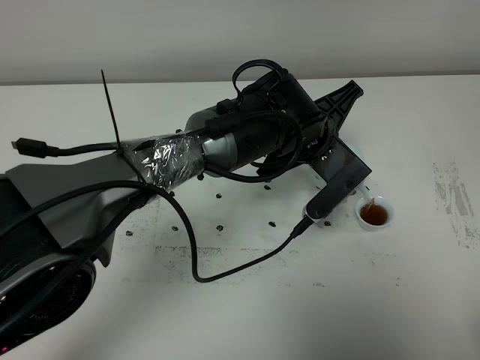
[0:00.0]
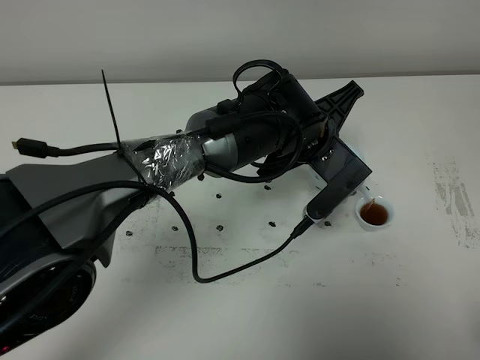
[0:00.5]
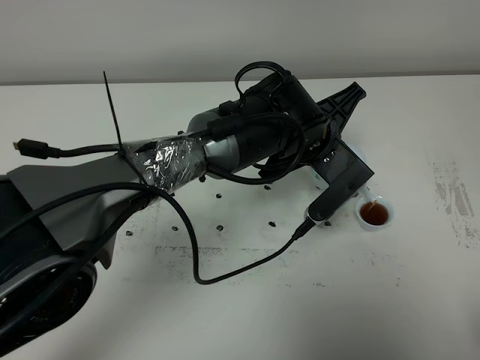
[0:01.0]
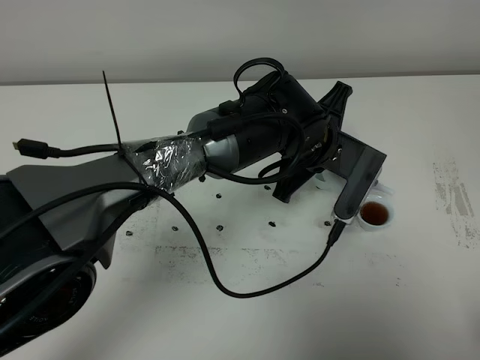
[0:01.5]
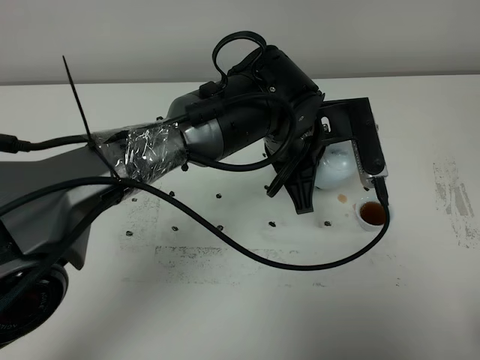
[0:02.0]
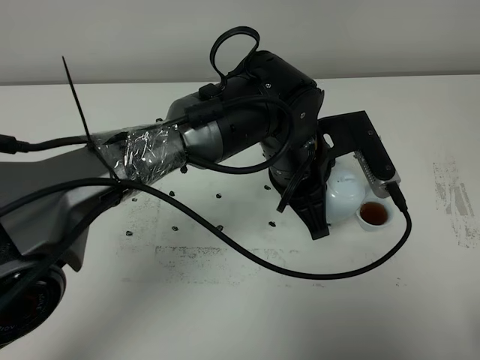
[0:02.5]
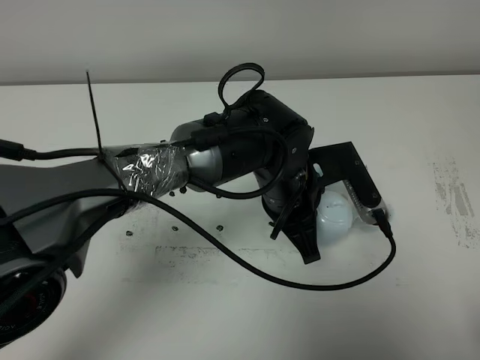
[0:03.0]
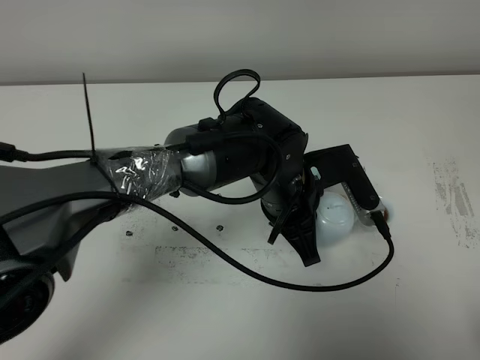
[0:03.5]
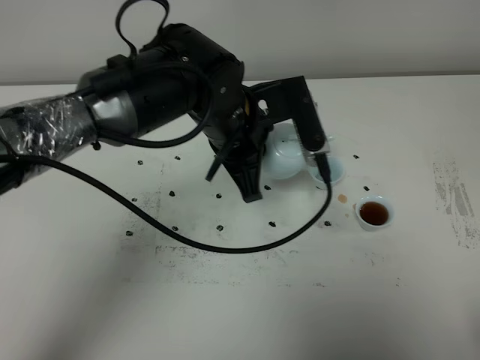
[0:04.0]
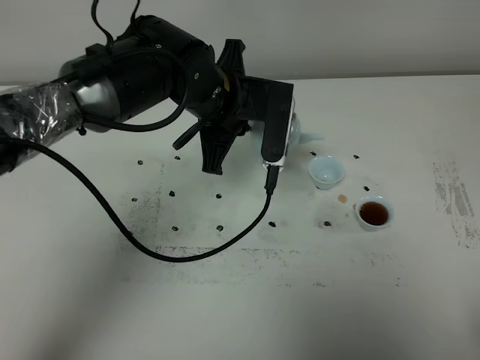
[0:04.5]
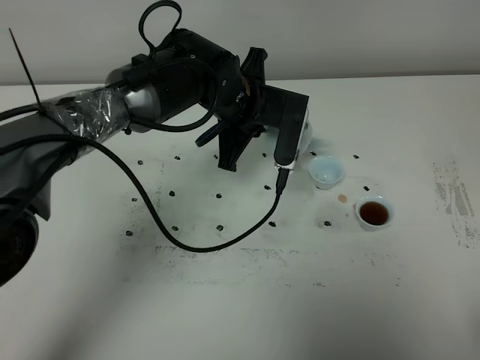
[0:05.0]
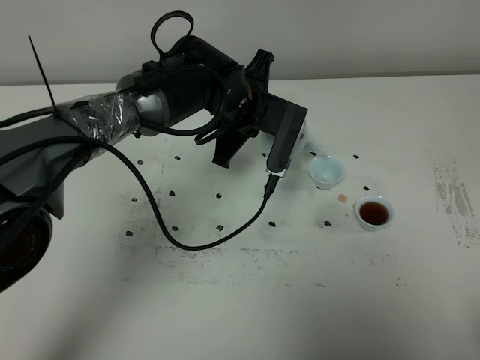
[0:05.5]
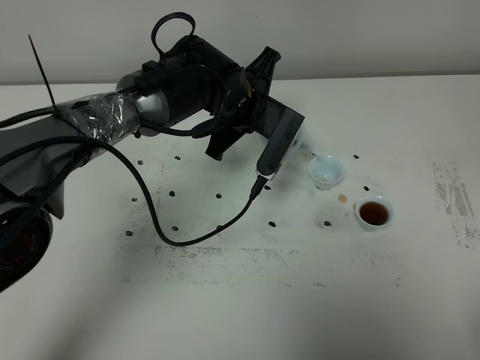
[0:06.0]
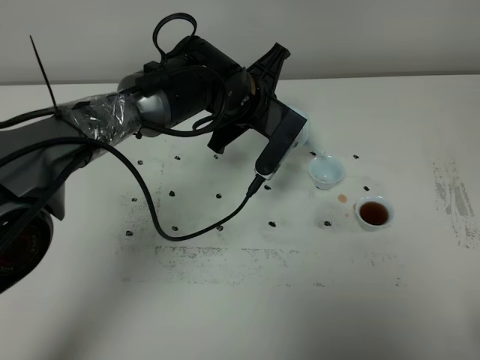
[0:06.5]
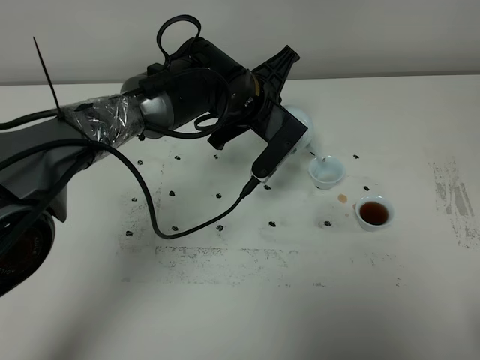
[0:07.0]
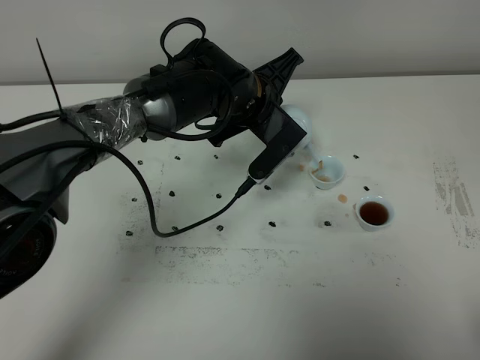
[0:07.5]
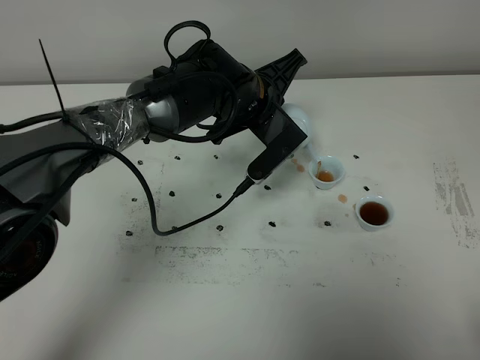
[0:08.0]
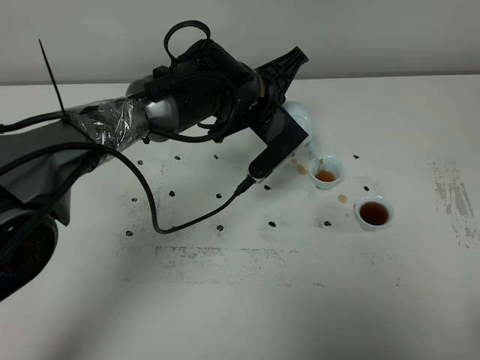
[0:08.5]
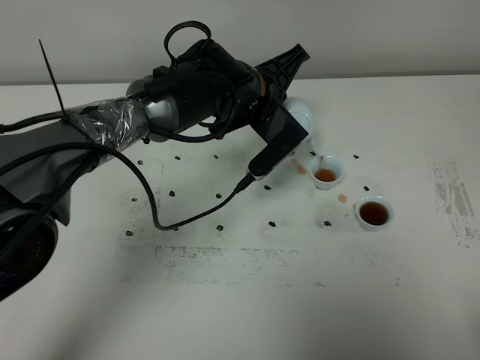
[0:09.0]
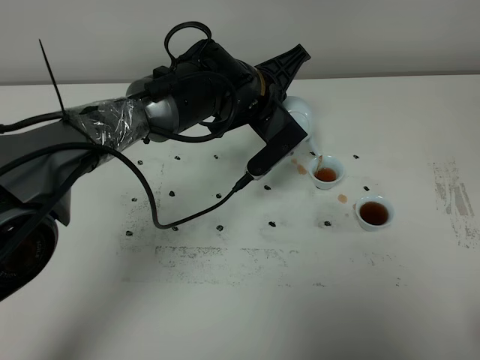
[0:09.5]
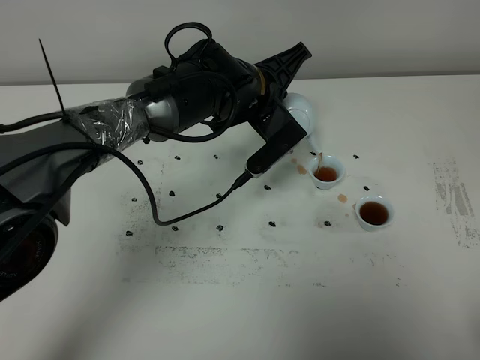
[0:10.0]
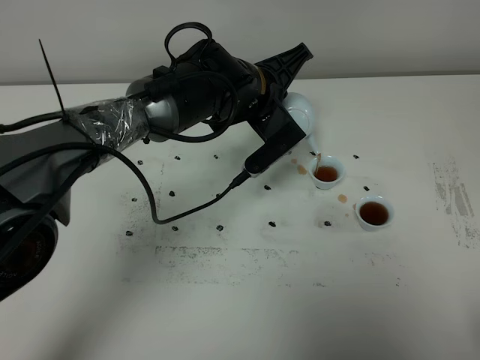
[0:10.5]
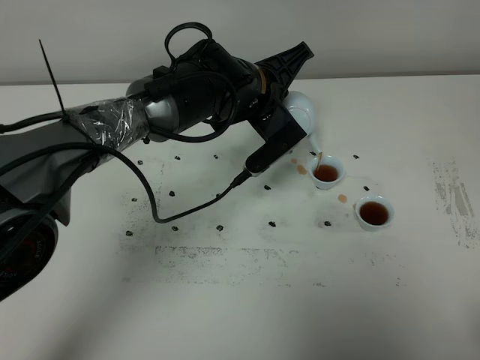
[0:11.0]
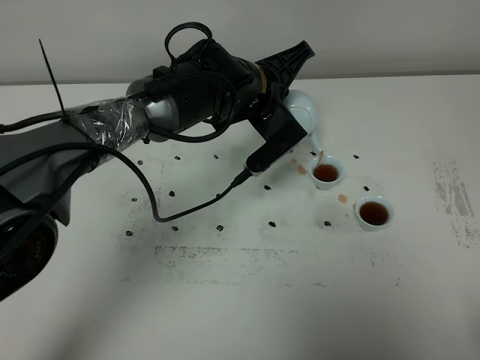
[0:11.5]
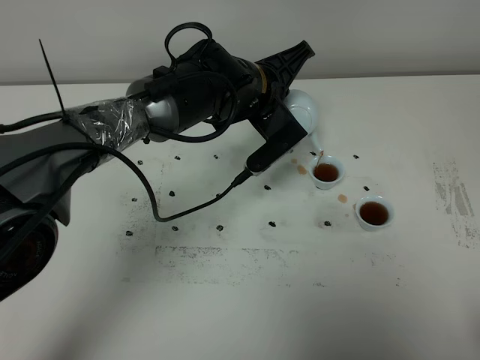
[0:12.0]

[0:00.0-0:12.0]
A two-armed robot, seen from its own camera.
Task of the whole recording: grasp the blue porcelain teapot and pour the tea into the two blue porcelain teacups one by one, put the blue porcelain teapot back in its original place.
0:02.0 to 0:04.0: The left gripper travels to the left by about 5 cm.
0:04.0 to 0:06.0: The left gripper shifts roughly 5 cm forward.
0:06.0 to 0:08.0: There are only small adjustments of the grippers.
0:08.0 to 0:10.0: The grippers stay close to where they were, moving slightly.
0:10.0 to 0:12.0: The two grippers keep their place.

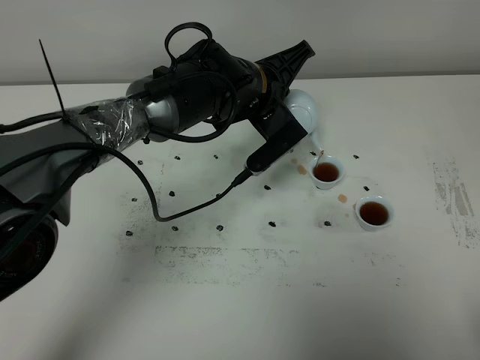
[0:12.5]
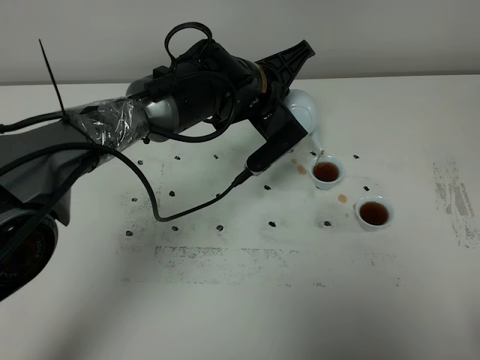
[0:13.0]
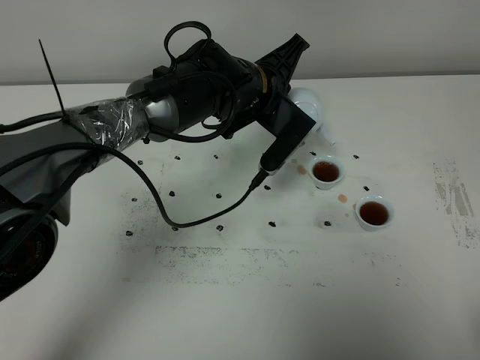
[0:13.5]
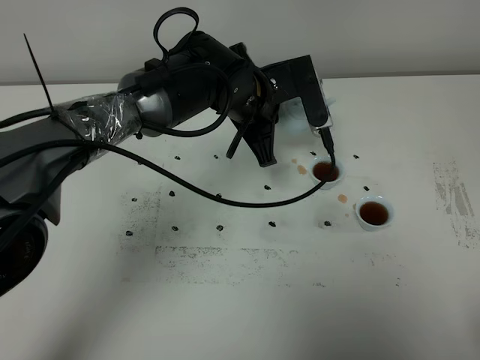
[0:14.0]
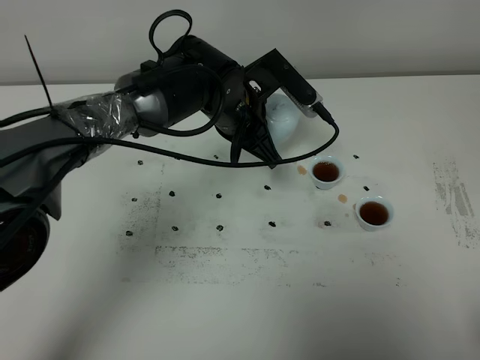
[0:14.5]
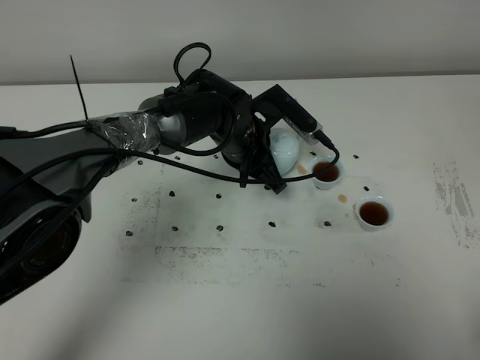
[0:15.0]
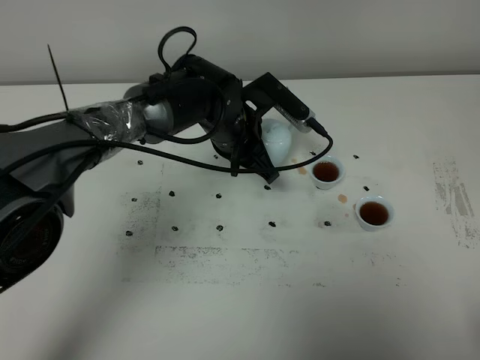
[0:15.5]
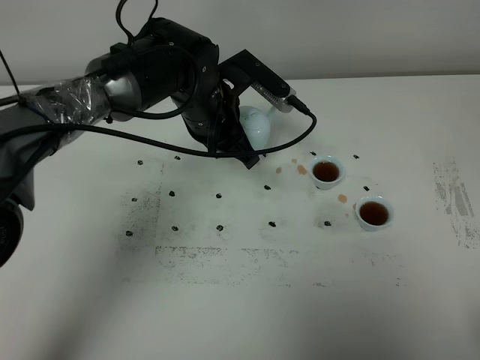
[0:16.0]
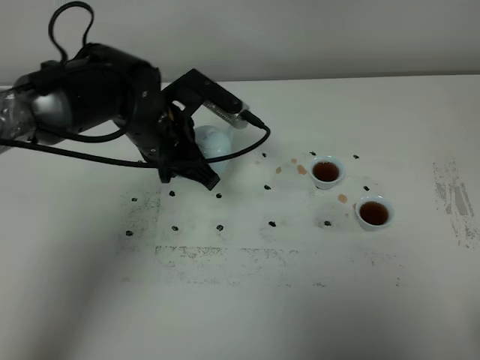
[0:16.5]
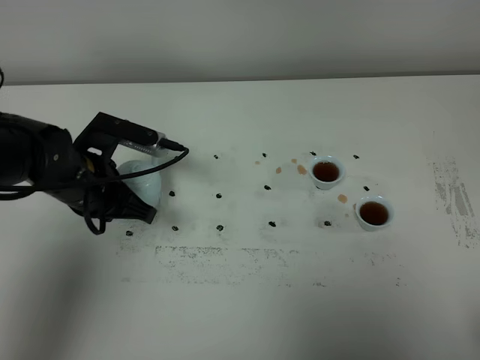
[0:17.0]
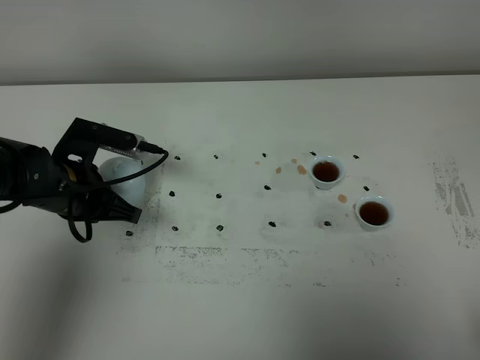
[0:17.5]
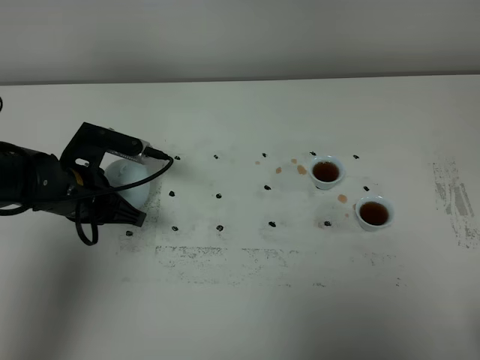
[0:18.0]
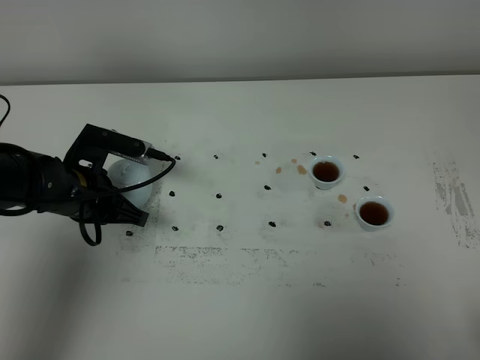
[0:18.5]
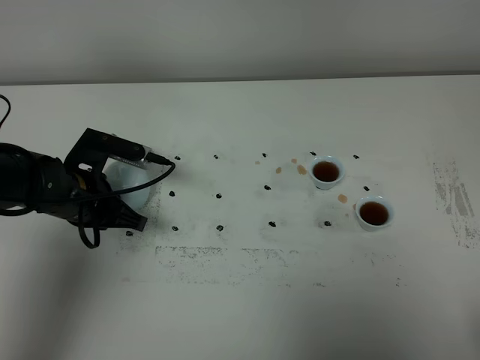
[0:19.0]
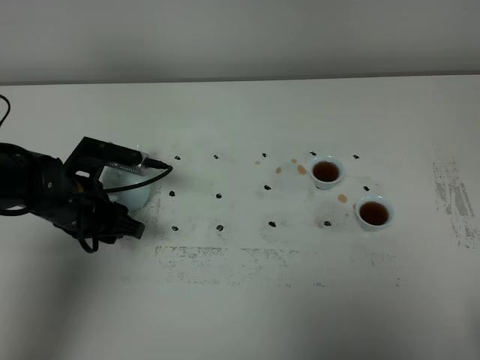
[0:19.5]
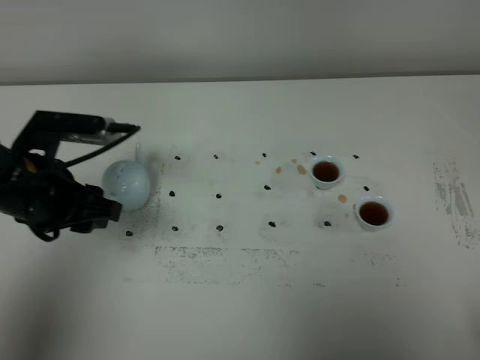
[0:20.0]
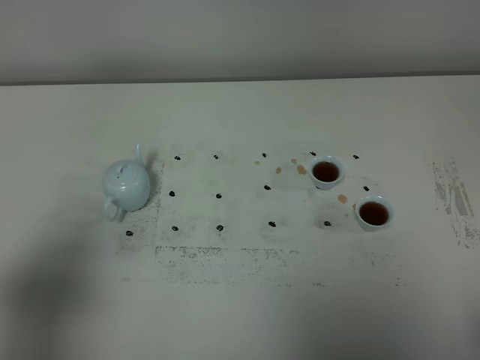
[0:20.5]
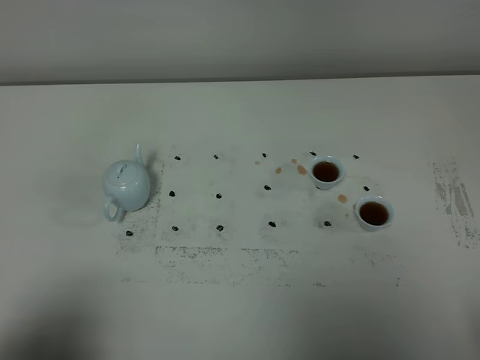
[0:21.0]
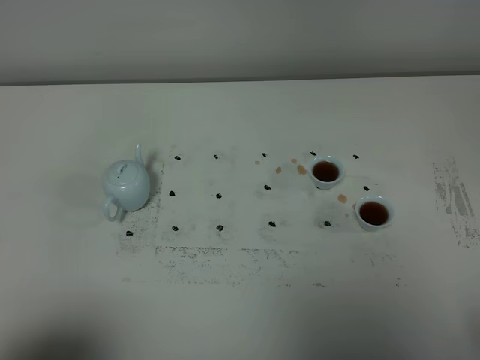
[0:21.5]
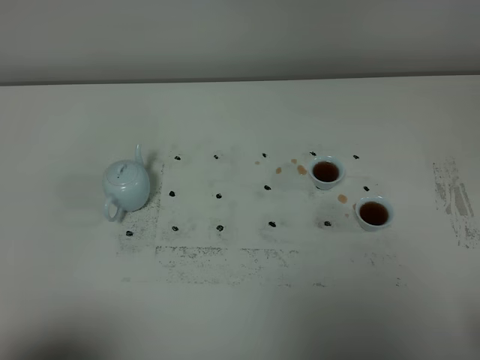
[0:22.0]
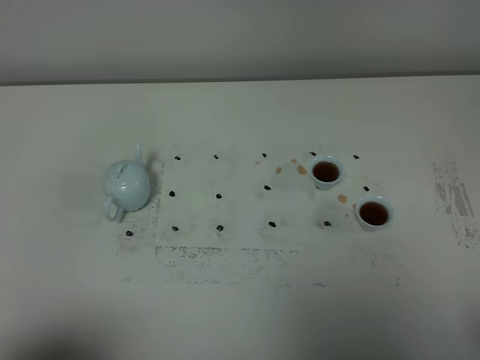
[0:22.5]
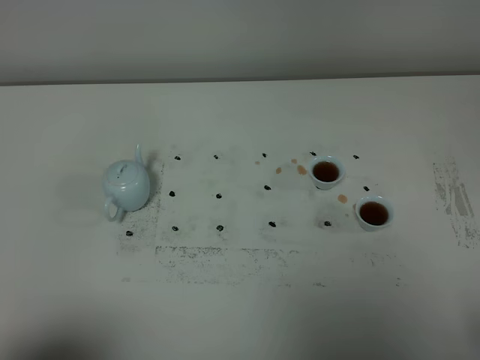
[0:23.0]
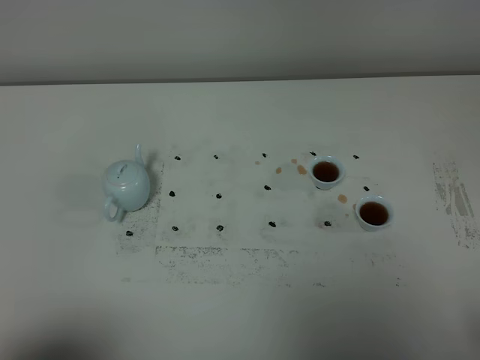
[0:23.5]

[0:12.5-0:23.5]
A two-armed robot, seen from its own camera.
Task of the whole recording: grasp the blue porcelain teapot and pour the tea into the two blue porcelain teacups one by one, put the blue porcelain teapot back in its original place.
0:14.5 to 0:16.0: The grippers stay close to where they were, moving slightly.
0:16.0 to 0:18.0: The left gripper moves to the left, backward and downward, some 20 cm.
0:18.0 to 0:20.0: The left gripper goes about 10 cm upward and backward, and opens up.
0:20.0 to 0:21.5: The left gripper goes approximately 25 cm backward.
